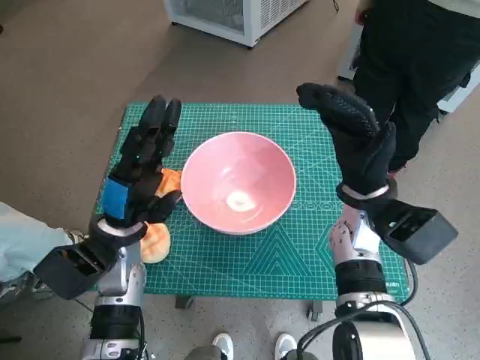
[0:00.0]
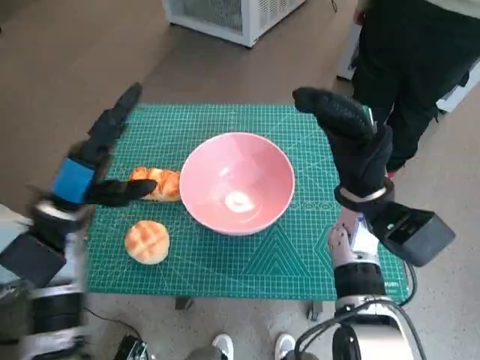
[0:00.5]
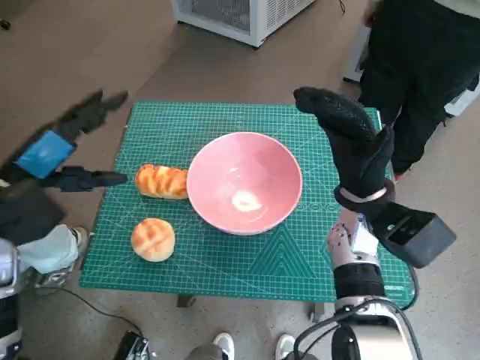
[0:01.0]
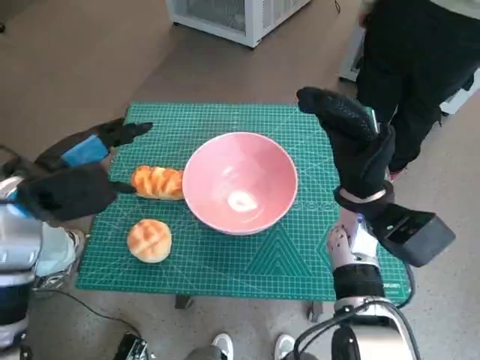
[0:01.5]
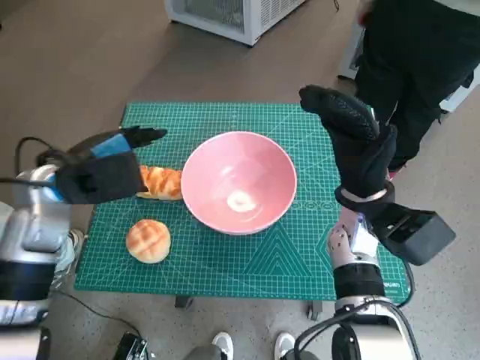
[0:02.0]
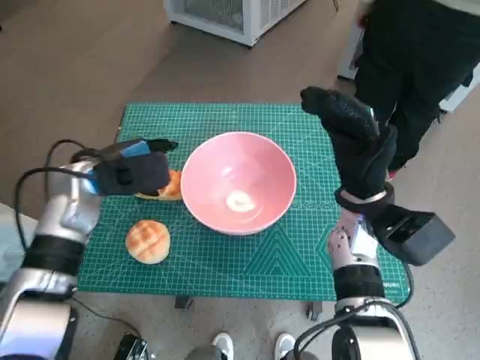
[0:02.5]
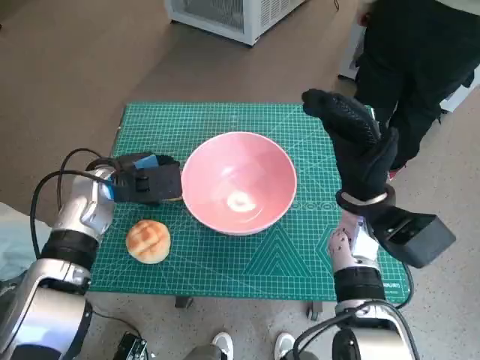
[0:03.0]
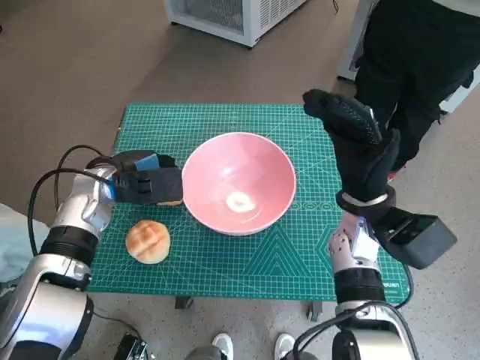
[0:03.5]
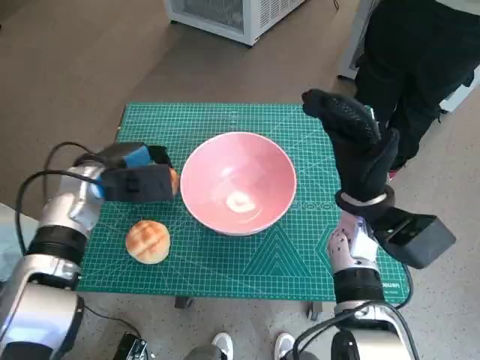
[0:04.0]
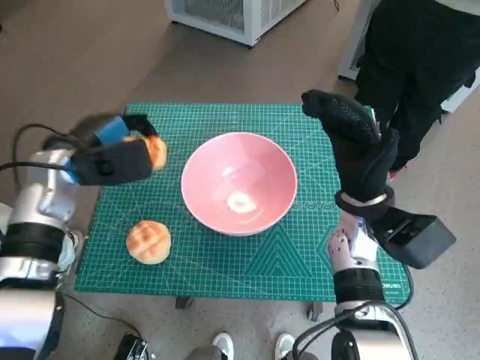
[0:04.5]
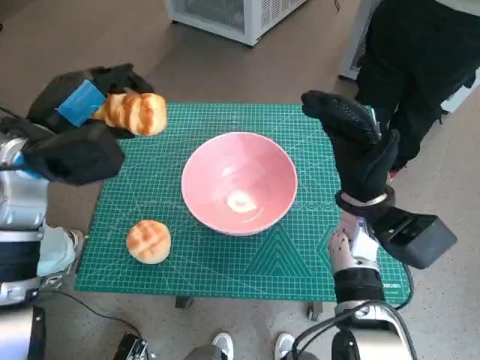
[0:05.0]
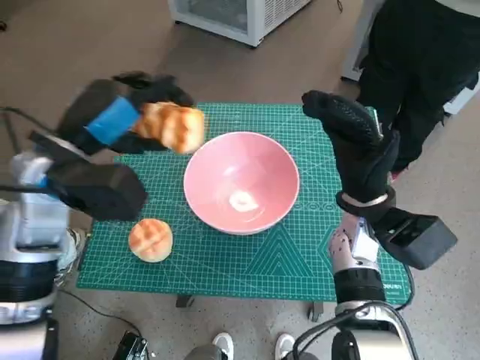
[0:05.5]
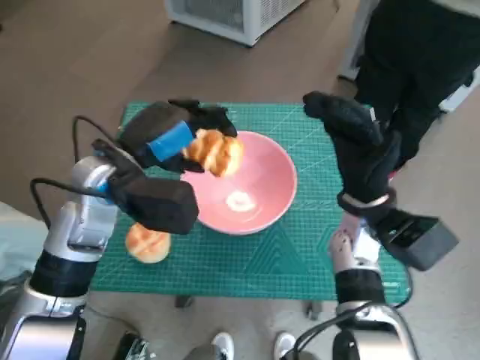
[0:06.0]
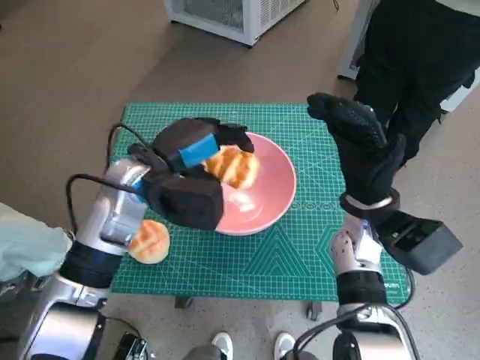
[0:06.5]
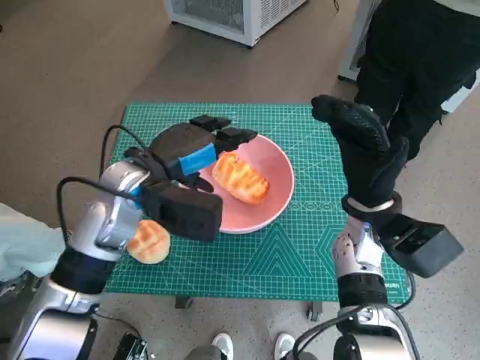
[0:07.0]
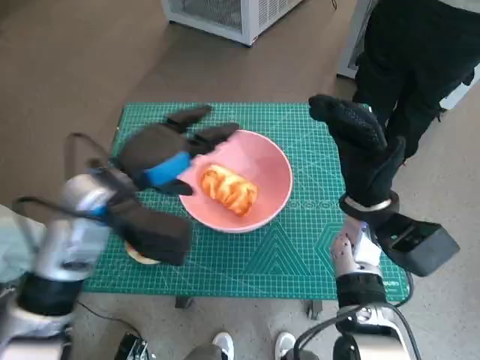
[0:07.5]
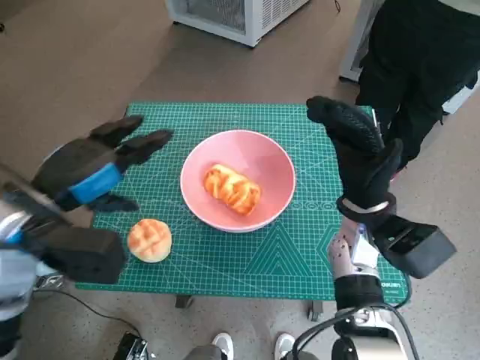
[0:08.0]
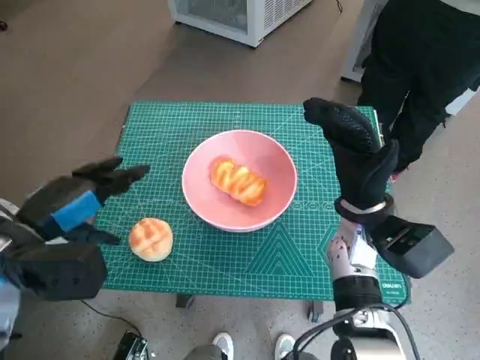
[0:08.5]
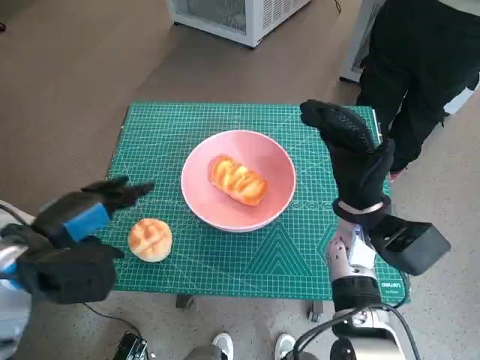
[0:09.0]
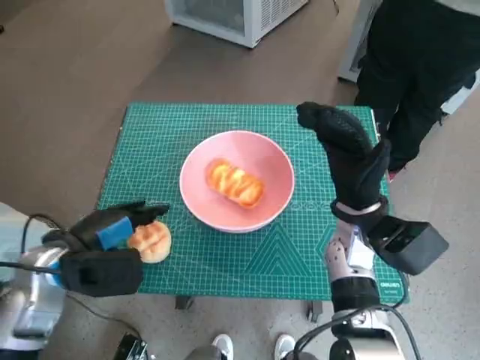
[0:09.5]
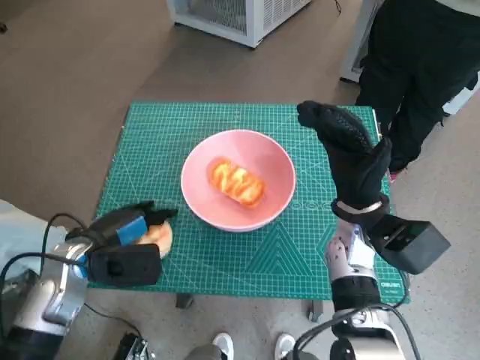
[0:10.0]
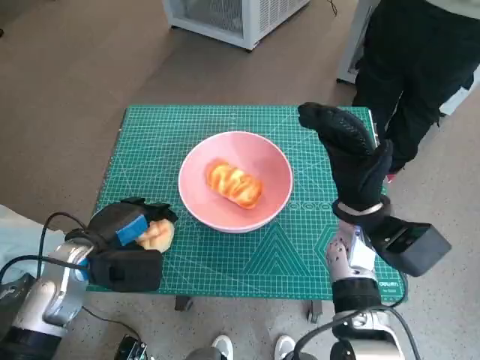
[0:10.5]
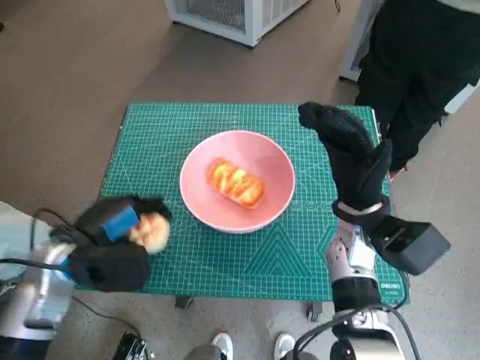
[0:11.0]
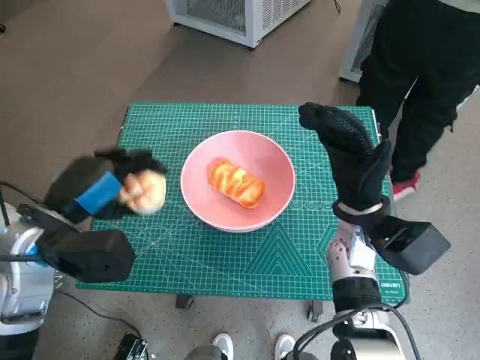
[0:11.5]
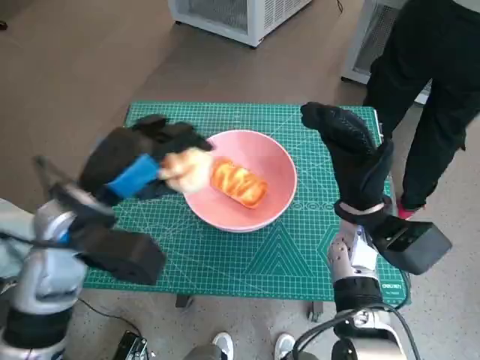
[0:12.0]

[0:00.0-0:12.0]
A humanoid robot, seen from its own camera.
Task of the whole recording: Push the bowl into the center of the table and put the bread into the bowl.
Step, 0:00.0 to 0:03.0: Grasp the long bread with left hand.
Step, 0:03.5 to 0:07.0: Place the long bread in pink bowl with left hand.
Step, 0:07.5 to 0:09.5: Grasp the round bread with left hand.
0:00.0 to 0:02.0: The left hand heads upward and to the left, covering about 10 cm.
0:02.0 to 0:04.0: The left hand travels downward by about 5 cm.
0:04.0 to 0:06.0: The left hand is displaced upward and to the right by roughly 10 cm.
0:06.0 to 0:08.0: The left hand goes about 10 cm to the left and backward.
0:08.0 to 0:10.0: The left hand goes approximately 10 cm downward.
0:10.0 to 0:12.0: The left hand moves upward, about 10 cm.
